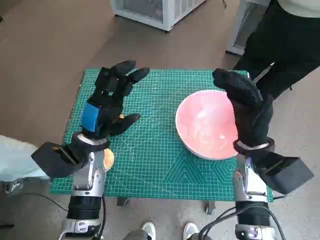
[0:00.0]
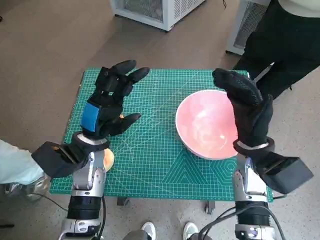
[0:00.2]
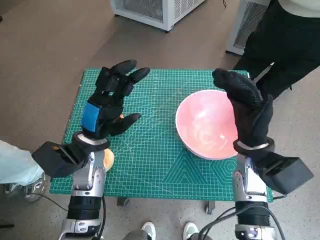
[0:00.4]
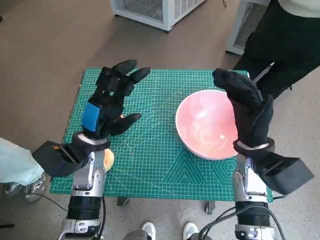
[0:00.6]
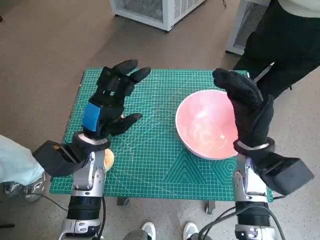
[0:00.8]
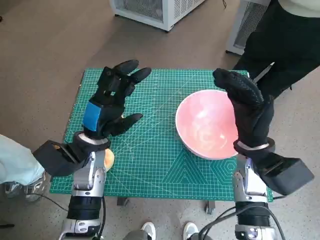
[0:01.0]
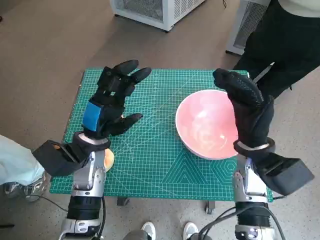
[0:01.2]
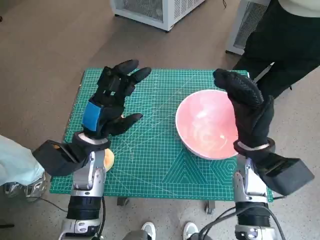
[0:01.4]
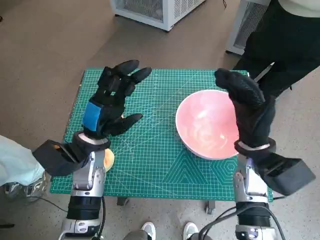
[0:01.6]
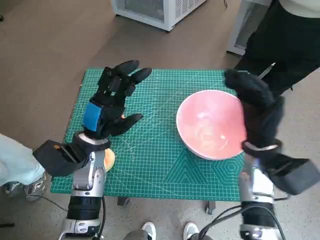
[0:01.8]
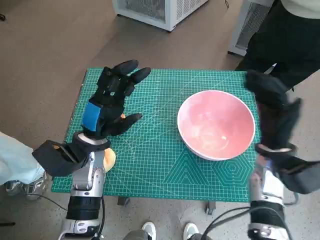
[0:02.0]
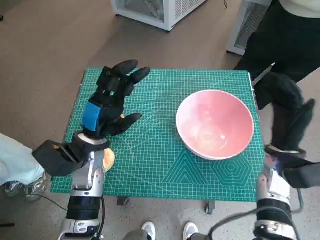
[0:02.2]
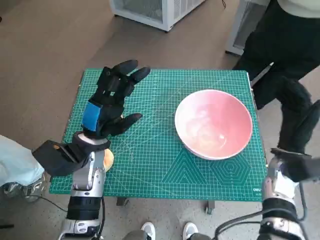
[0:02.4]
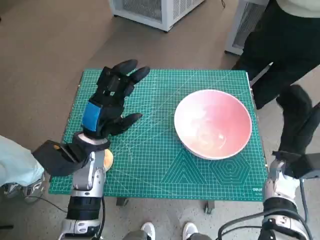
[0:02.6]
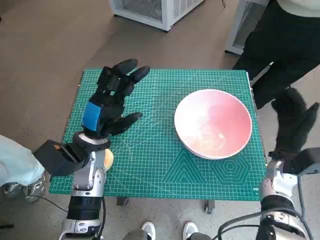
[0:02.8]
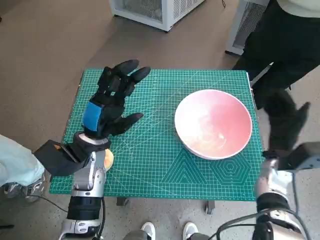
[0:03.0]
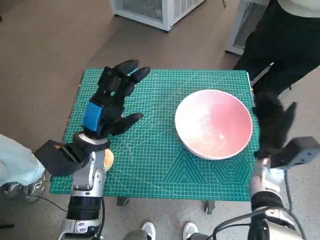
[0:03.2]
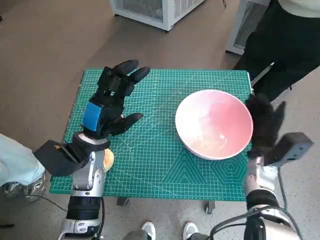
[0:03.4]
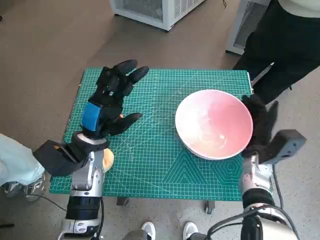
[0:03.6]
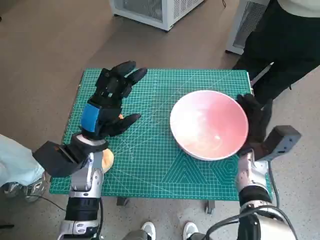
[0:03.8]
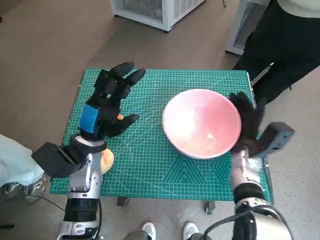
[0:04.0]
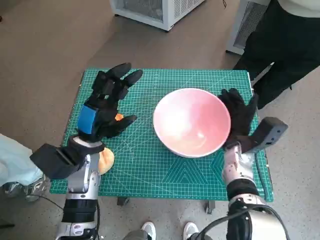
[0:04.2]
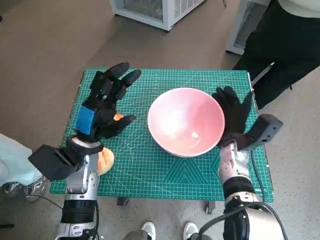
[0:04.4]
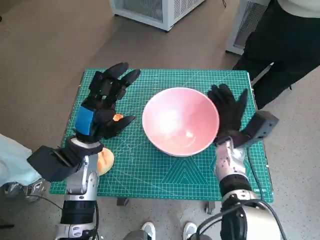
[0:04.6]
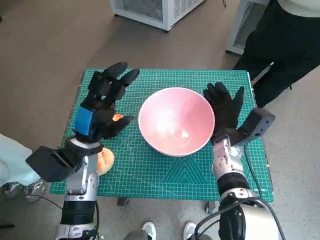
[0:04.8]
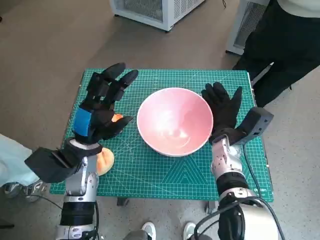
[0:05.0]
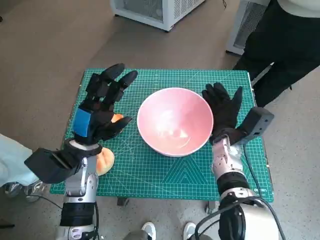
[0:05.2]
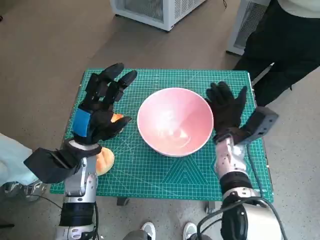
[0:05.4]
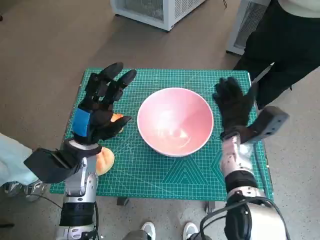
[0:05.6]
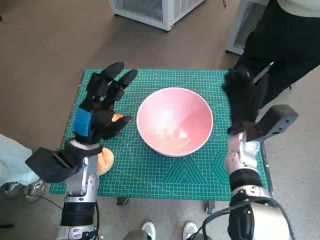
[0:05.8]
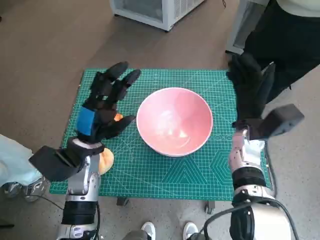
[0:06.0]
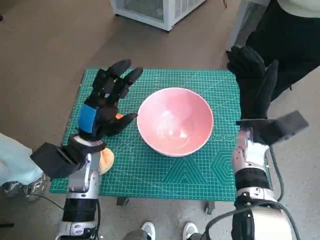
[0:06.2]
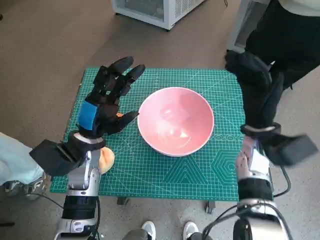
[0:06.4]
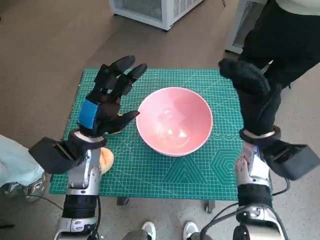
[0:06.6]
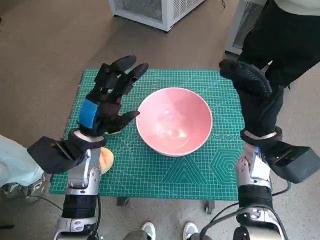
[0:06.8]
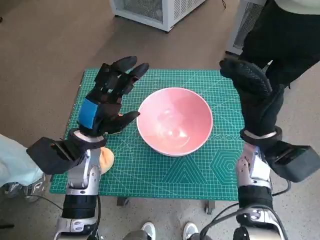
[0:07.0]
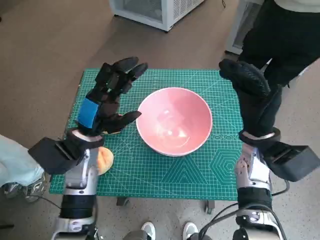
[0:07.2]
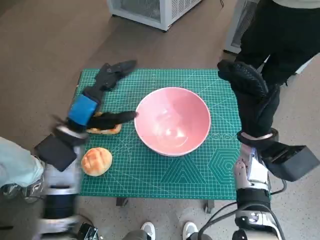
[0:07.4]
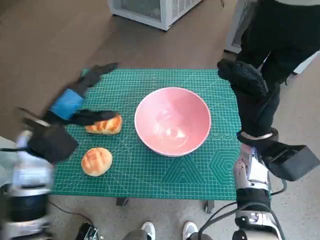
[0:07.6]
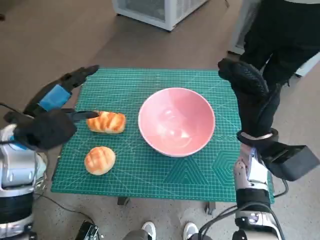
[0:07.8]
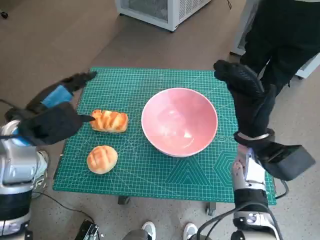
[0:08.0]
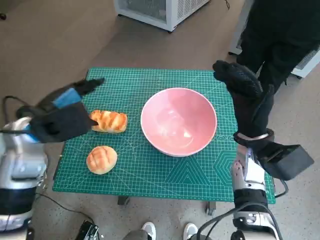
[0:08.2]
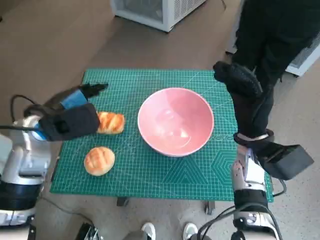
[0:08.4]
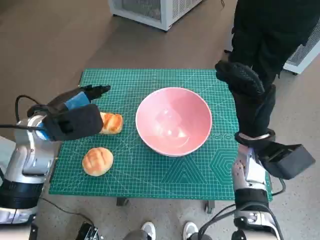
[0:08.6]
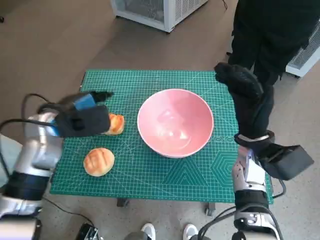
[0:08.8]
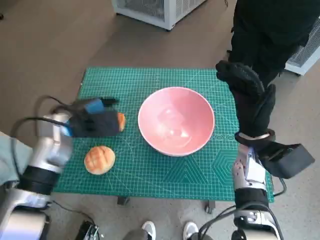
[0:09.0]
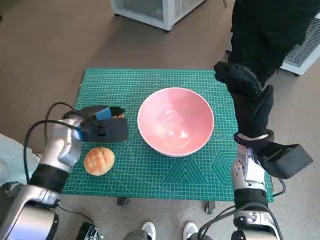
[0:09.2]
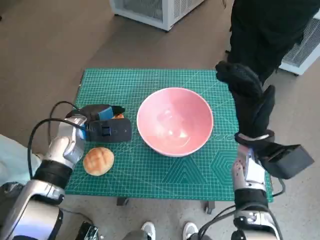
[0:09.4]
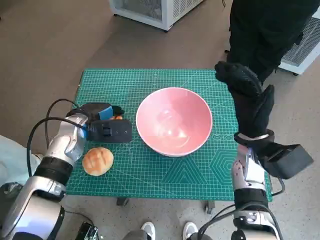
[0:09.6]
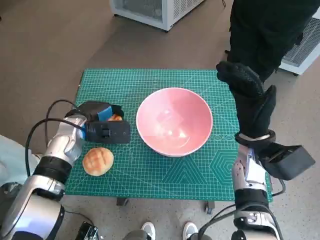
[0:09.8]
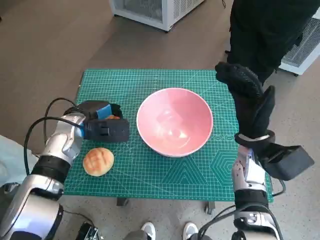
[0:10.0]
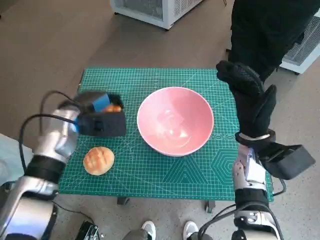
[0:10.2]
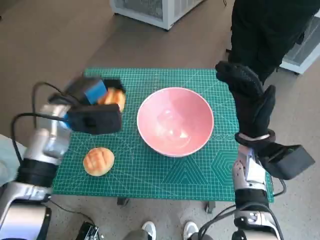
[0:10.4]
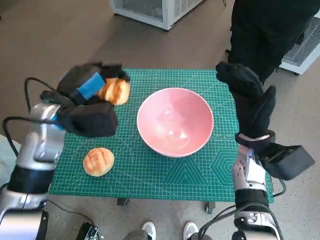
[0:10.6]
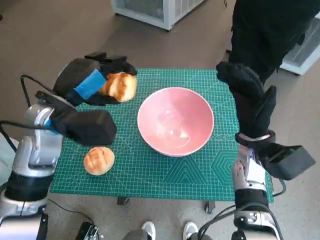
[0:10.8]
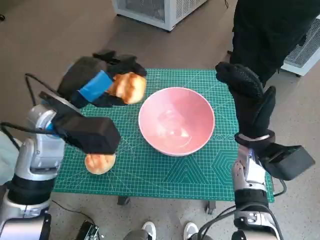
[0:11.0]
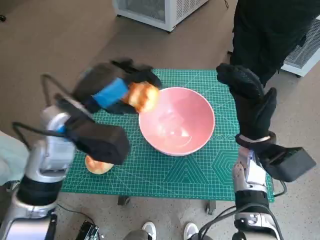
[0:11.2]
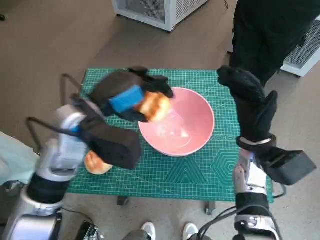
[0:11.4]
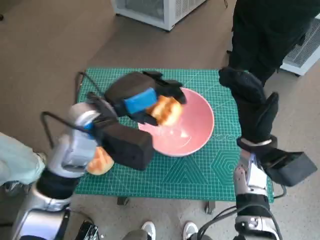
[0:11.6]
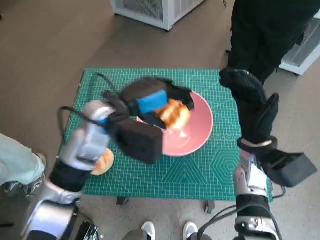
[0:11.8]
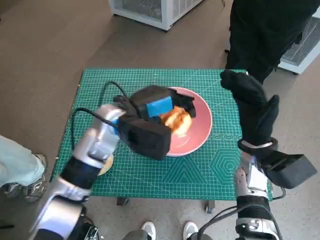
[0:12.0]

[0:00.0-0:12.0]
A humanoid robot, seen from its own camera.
Task of the whole recording: Push the bowl into the center of the table and put the bread into the bowl.
Step, 0:00.0 to 0:05.4: Move the pink bowl to the center of table with right hand.
Step, 0:05.8 to 0:09.6: Grasp the long bread with left hand.
0:01.6 to 0:03.0: The right hand heads to the right and downward, covering some 10 cm.
0:03.0 to 0:04.4: The right hand travels to the left by approximately 10 cm.
0:04.4 to 0:06.0: The right hand shifts some 5 cm upward.
0:06.0 to 0:07.6: The left hand heads upward, covering roughly 5 cm.
0:09.0 to 0:10.4: The hands stay close to where they were, moving slightly.
0:10.4 to 0:12.0: The left hand heads to the right, covering some 10 cm.

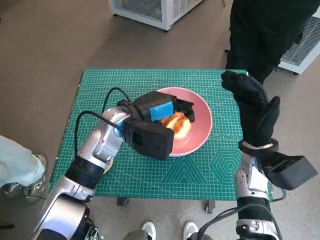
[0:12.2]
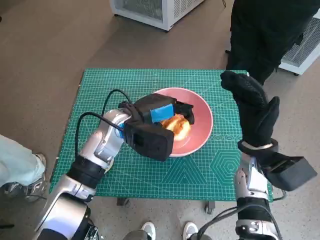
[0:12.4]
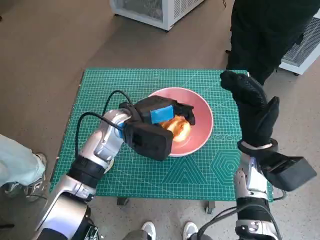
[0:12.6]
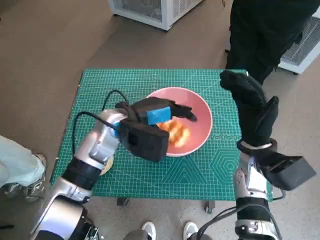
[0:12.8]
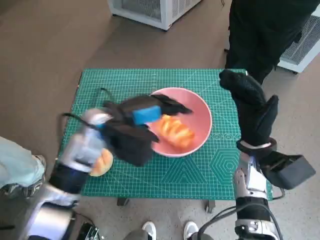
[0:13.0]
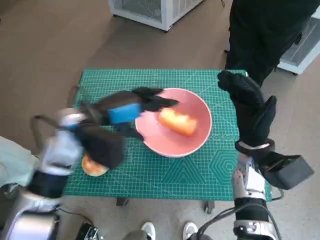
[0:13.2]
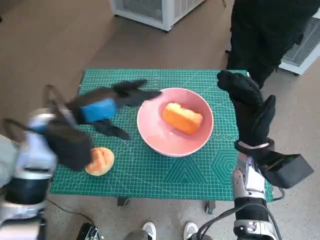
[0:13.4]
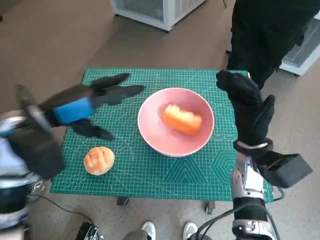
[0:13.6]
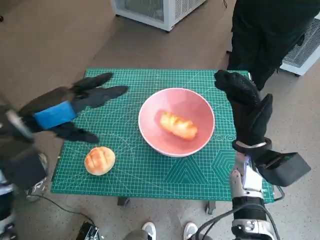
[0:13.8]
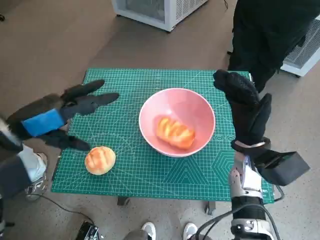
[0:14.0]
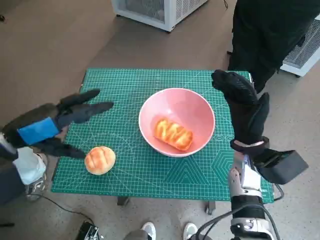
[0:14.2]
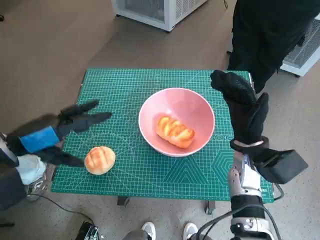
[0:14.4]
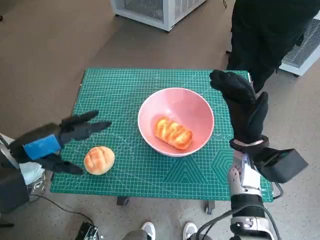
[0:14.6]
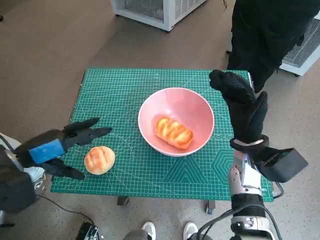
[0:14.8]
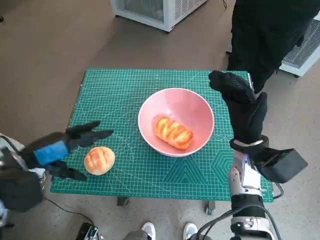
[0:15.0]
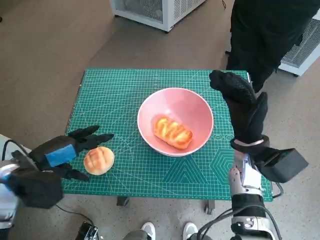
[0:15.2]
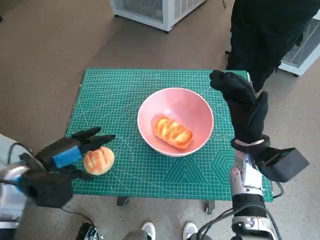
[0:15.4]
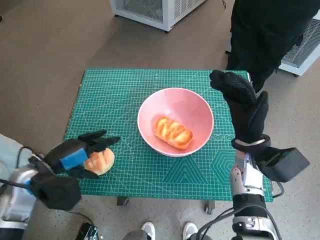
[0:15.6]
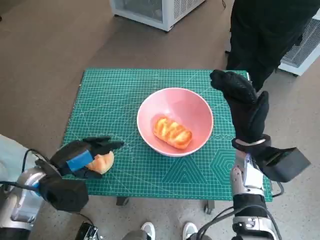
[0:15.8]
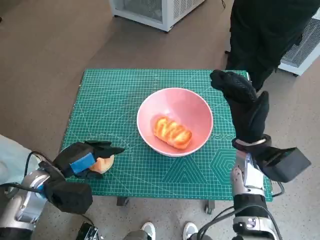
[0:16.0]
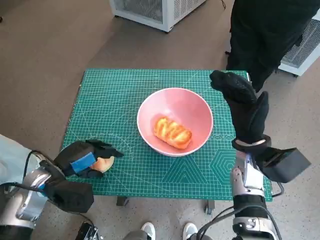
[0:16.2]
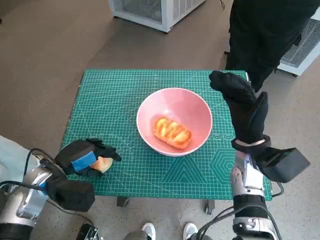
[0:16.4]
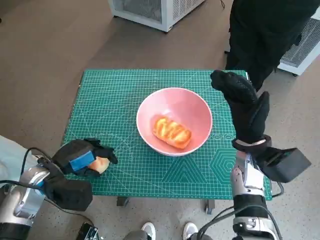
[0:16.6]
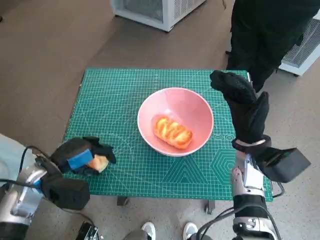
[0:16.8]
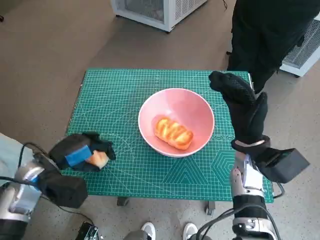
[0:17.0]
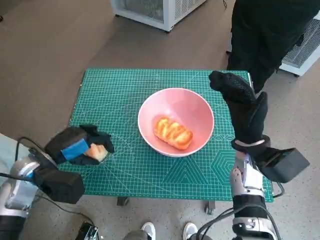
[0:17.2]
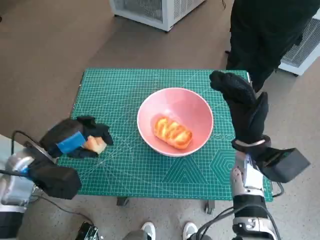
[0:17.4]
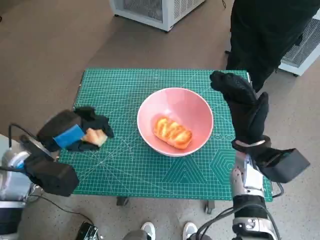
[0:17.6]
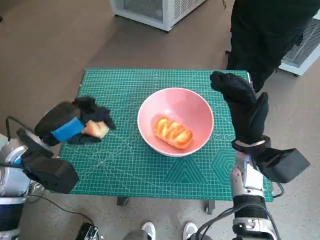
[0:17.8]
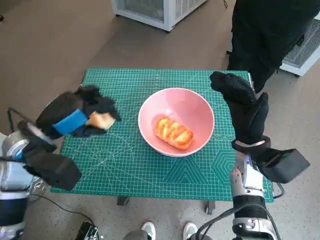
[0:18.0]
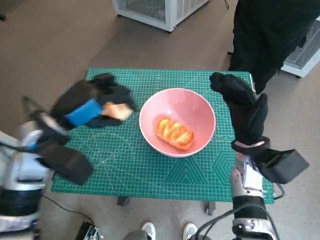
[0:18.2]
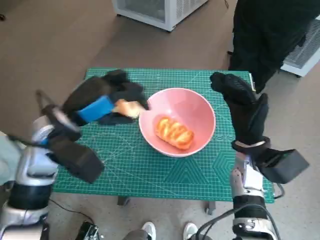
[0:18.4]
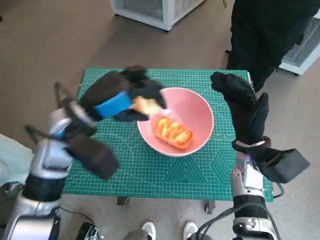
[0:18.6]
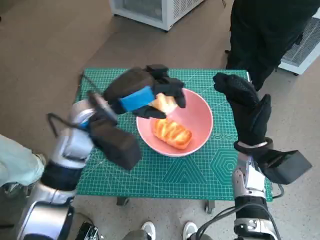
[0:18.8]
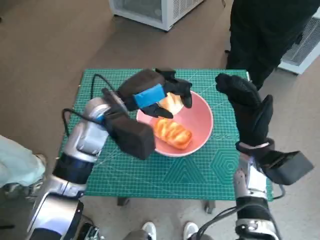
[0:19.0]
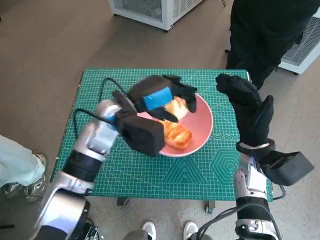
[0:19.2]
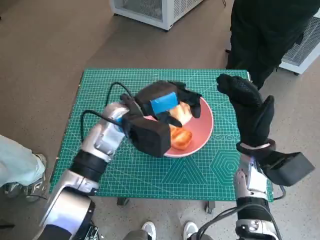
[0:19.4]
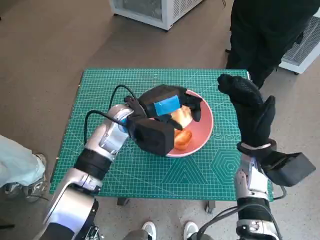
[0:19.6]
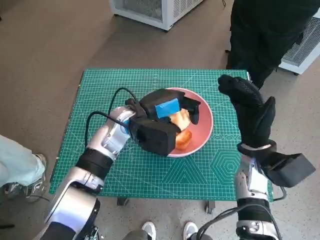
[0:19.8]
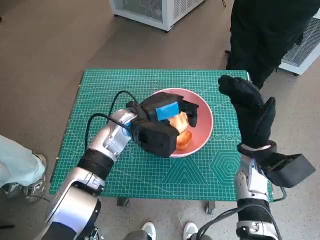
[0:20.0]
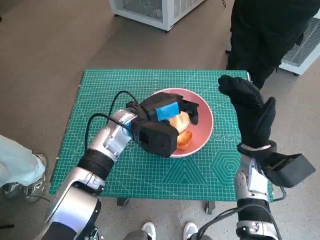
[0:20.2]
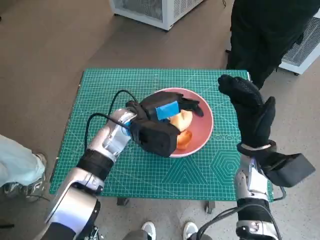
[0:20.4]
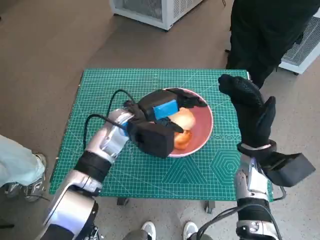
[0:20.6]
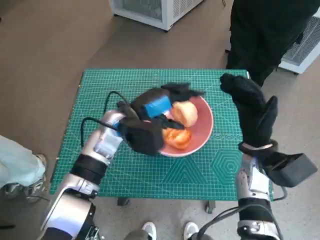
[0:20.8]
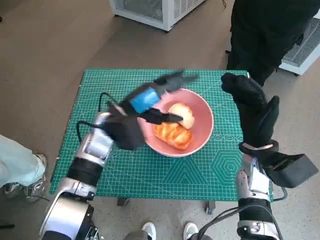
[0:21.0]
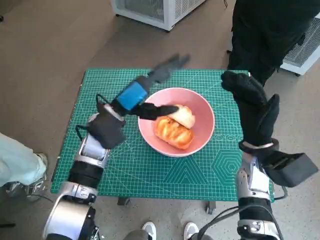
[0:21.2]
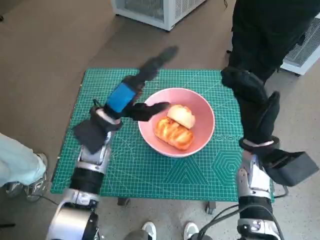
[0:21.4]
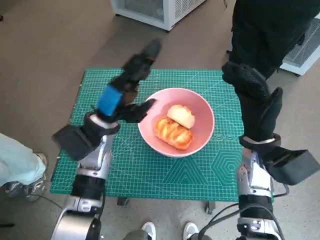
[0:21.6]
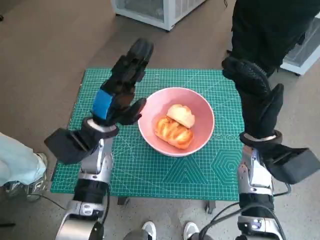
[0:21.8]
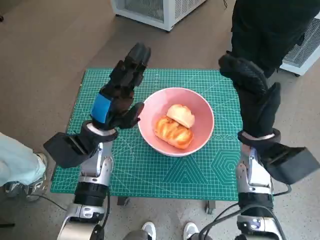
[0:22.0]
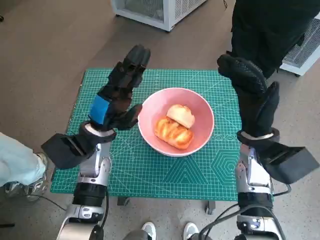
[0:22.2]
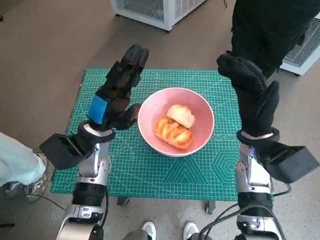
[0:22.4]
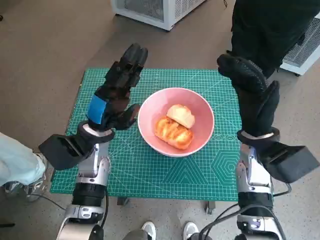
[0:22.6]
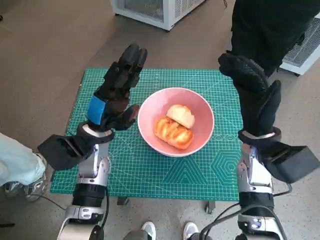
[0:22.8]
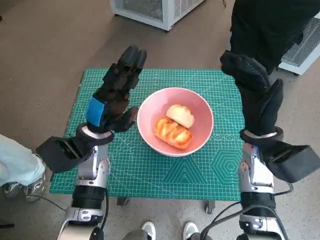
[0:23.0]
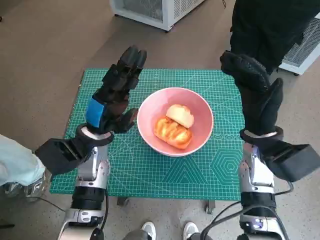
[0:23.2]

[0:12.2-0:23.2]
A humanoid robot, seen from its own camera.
Task of the whole recording: Push the bowl into the center of the table and put the bread into the bowl.
Step, 0:13.2 to 0:16.6: Grasp the round bread with left hand.
Step, 0:16.8 to 0:20.8: Place the round bread in pink bowl with left hand.
0:12.2 to 0:13.8: The left hand travels to the left, backward and upward by approximately 20 cm.
0:13.8 to 0:15.4: The left hand goes about 10 cm downward.
0:15.4 to 0:17.0: The hands stay close to where they were, moving slightly.
0:17.0 to 0:18.4: The left hand shifts about 10 cm upward and to the right.
0:18.4 to 0:20.0: The left hand heads to the right, downward and forward, covering roughly 15 cm.
0:20.0 to 0:21.6: The left hand is displaced to the left by about 5 cm.
0:21.6 to 0:23.2: The hands move only a little.
